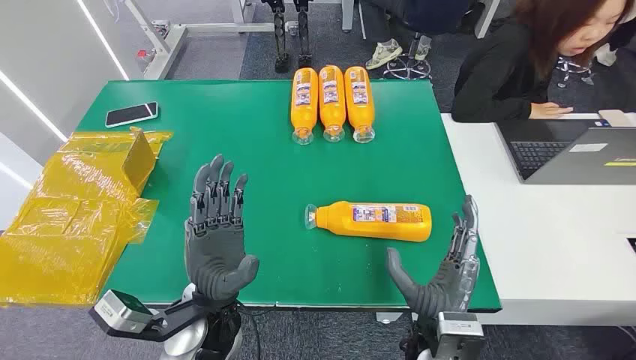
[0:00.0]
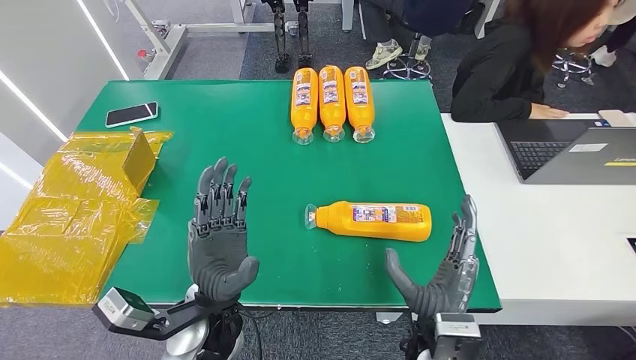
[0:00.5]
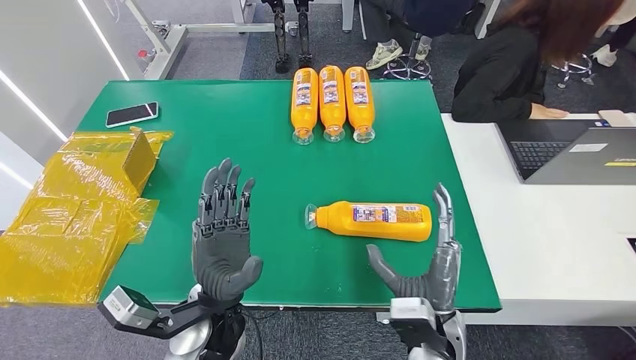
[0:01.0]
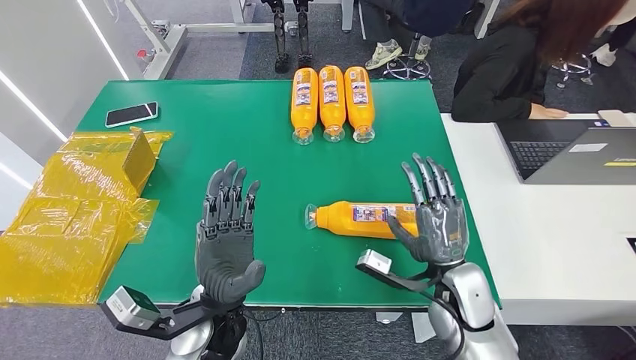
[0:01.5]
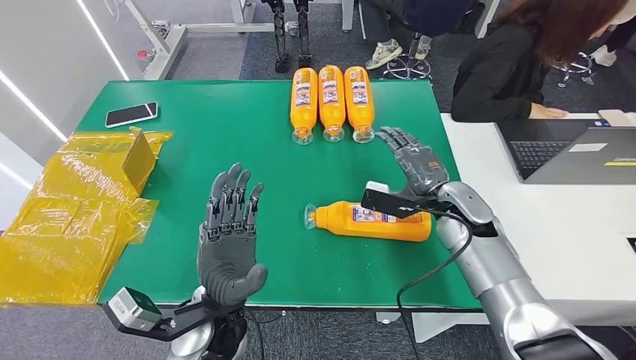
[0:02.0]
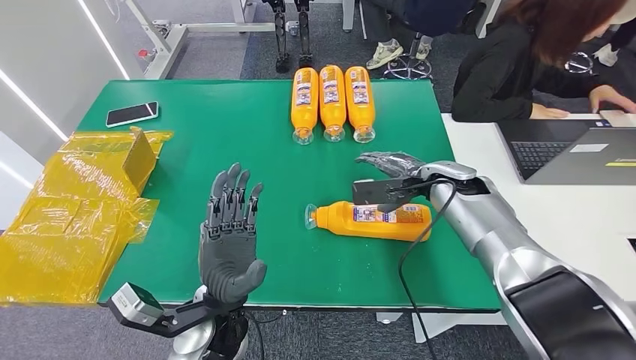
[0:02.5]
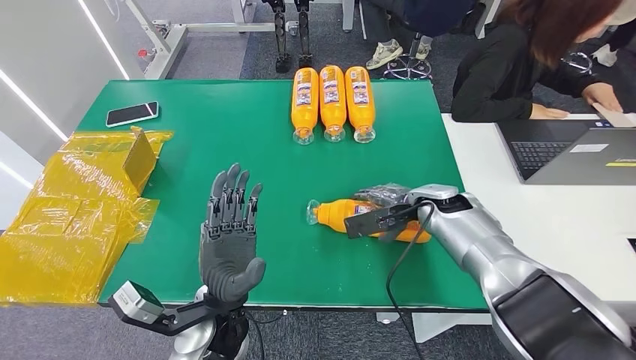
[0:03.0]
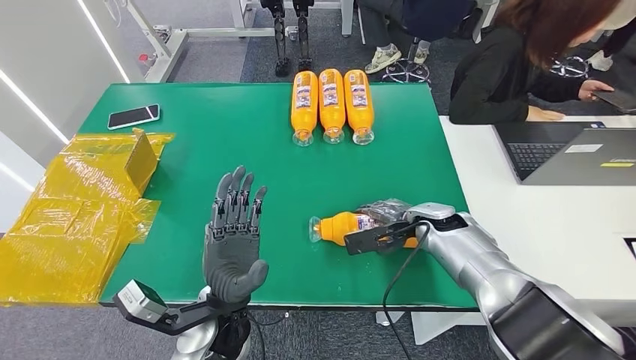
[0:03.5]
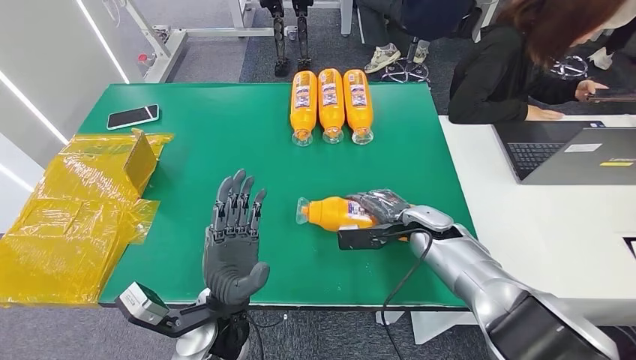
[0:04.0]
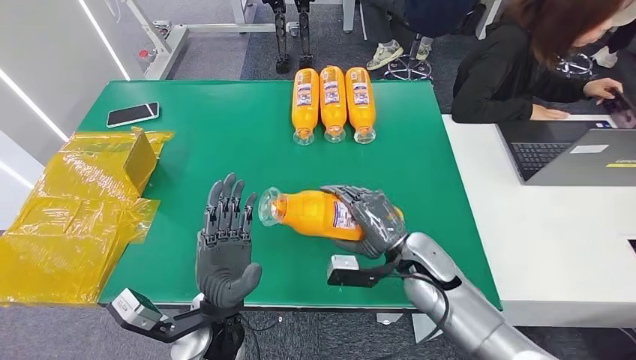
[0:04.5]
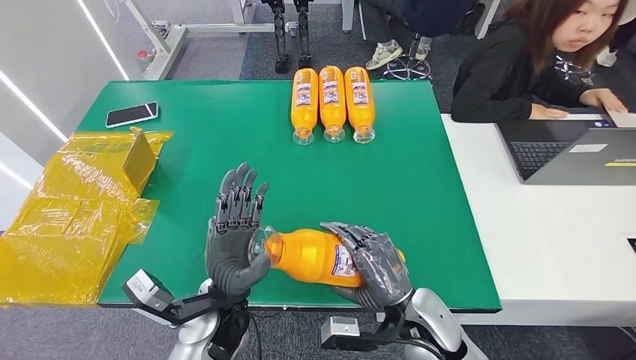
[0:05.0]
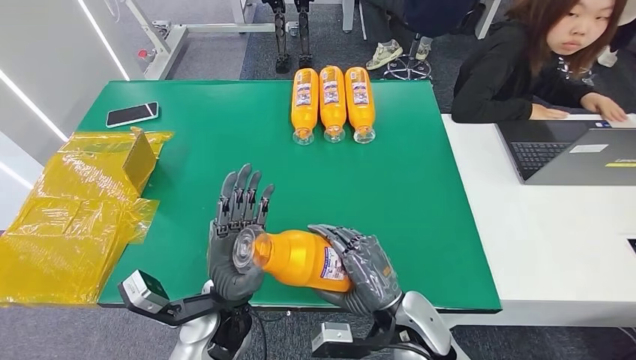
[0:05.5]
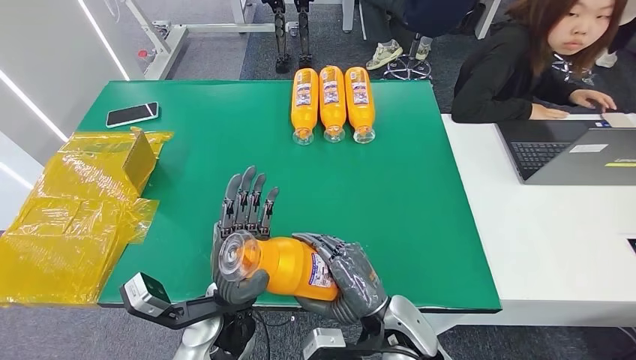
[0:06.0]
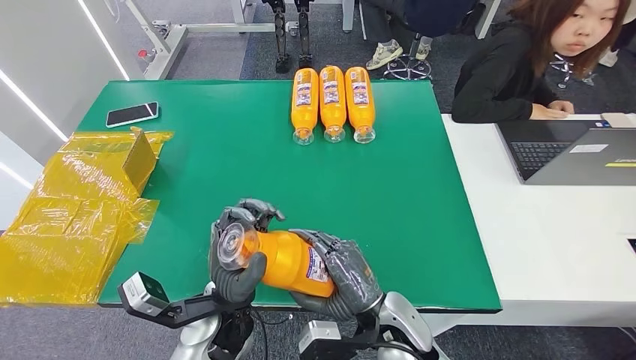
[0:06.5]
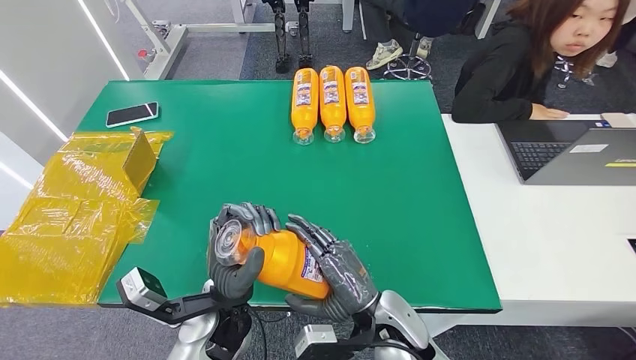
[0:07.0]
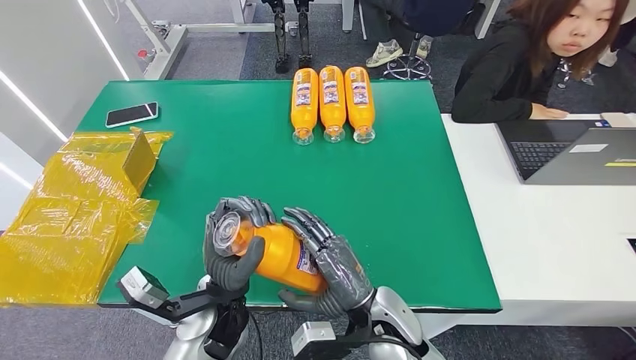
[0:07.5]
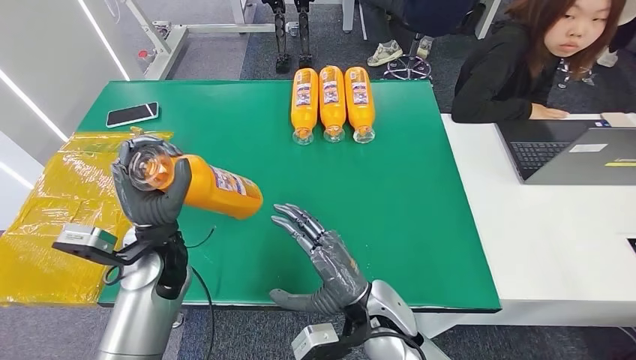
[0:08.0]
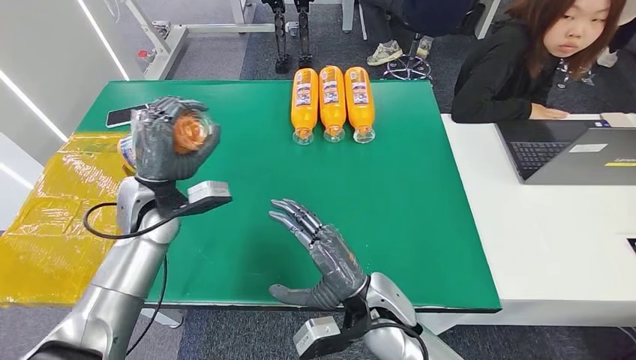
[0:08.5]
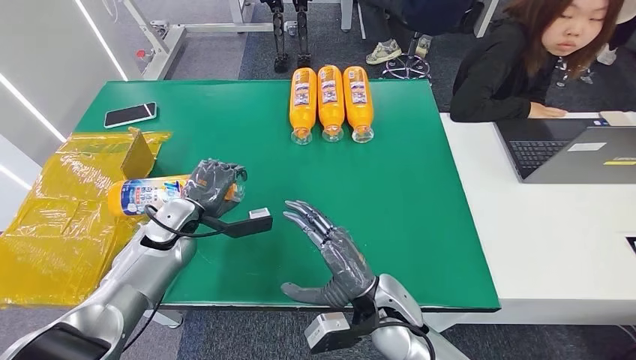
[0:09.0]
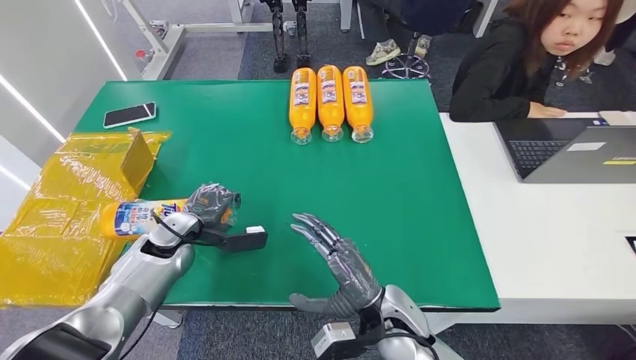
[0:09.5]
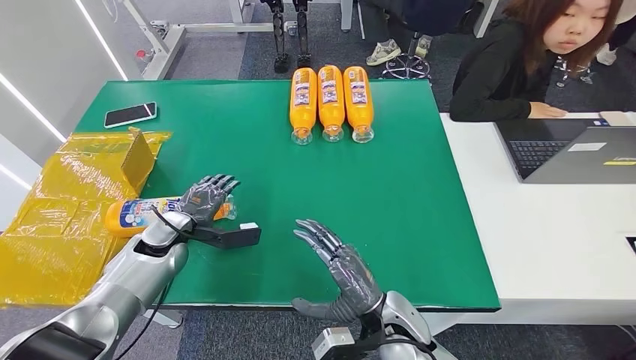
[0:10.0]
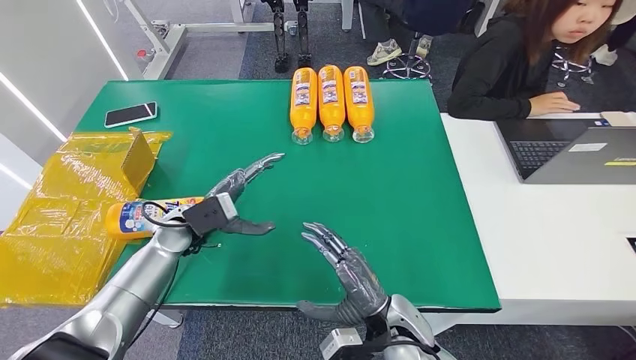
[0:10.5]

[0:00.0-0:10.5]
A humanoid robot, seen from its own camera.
Step, 0:00.0 to 0:05.0: Pick up the bottle from the table.
Step, 0:05.5 to 0:10.5: Turn the bottle to the front side.
0:02.0 to 0:04.0: The right hand shifts about 5 cm downward.
0:06.5 to 0:08.5: The left hand shifts approximately 25 cm forward, to the left and upward.
0:08.5 to 0:10.5: Both hands move downward, some 5 cm.

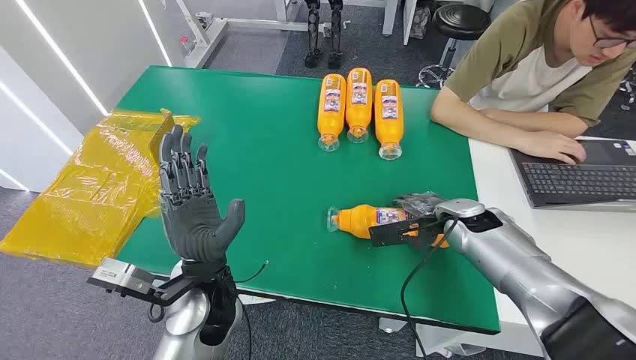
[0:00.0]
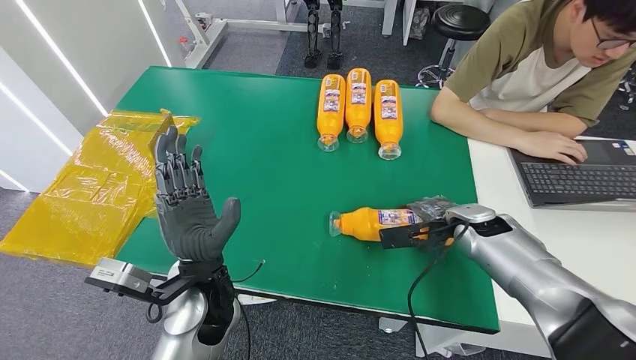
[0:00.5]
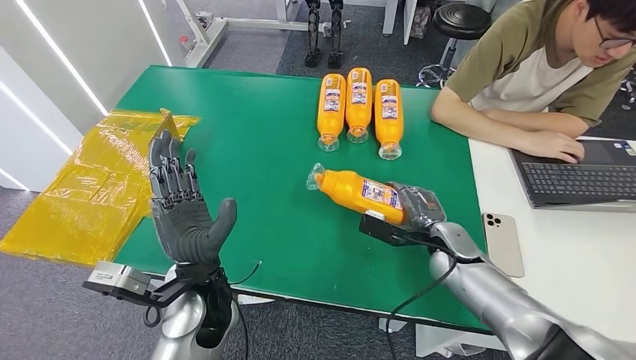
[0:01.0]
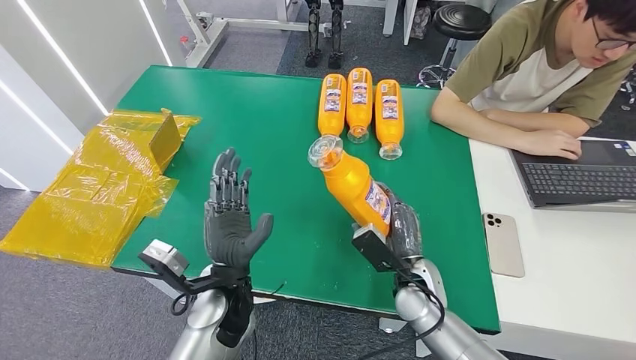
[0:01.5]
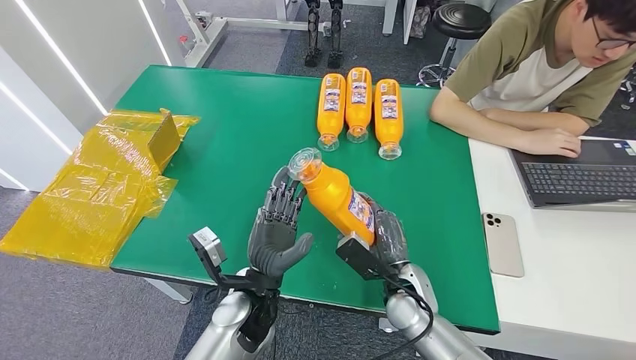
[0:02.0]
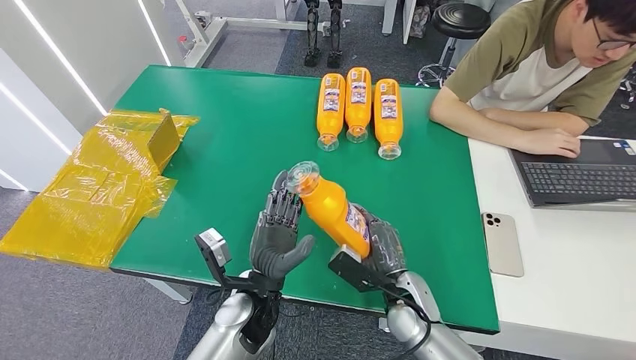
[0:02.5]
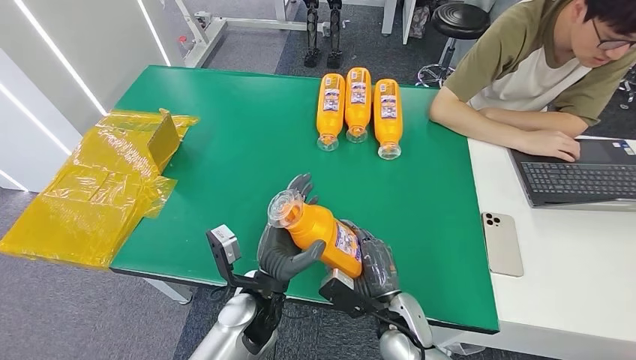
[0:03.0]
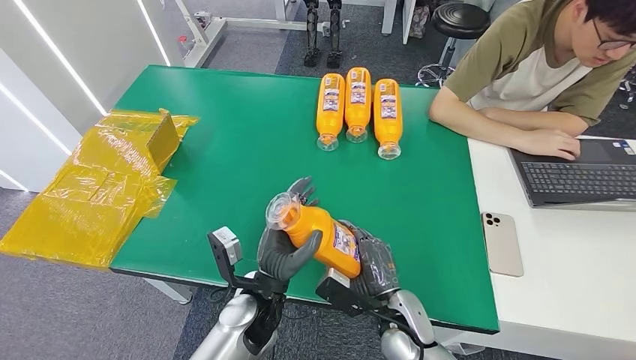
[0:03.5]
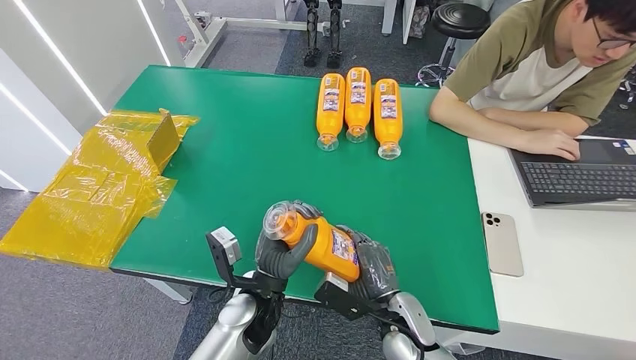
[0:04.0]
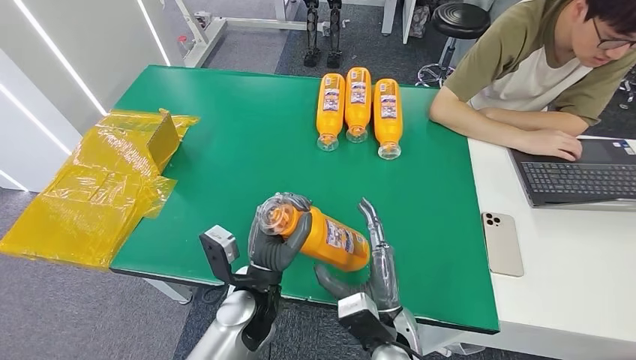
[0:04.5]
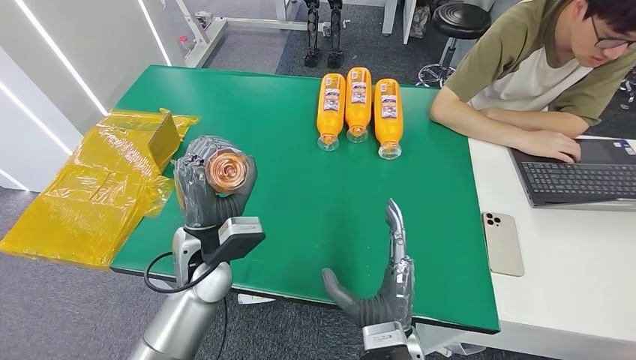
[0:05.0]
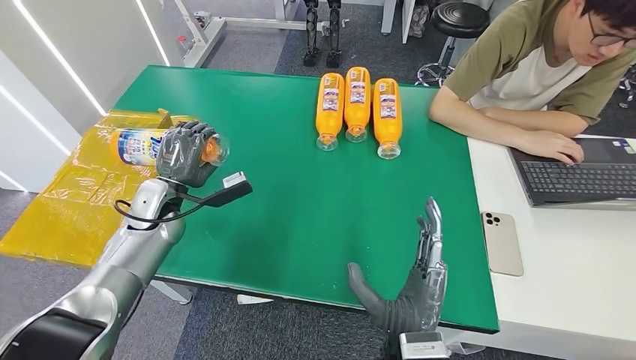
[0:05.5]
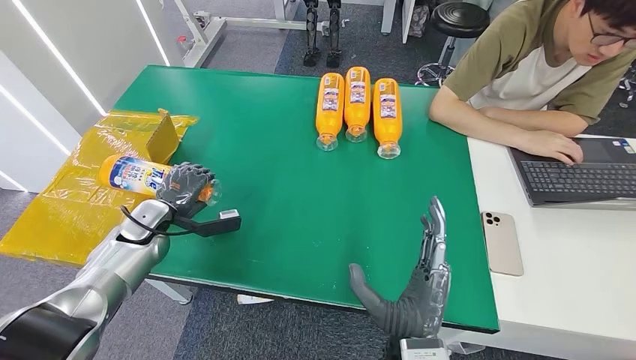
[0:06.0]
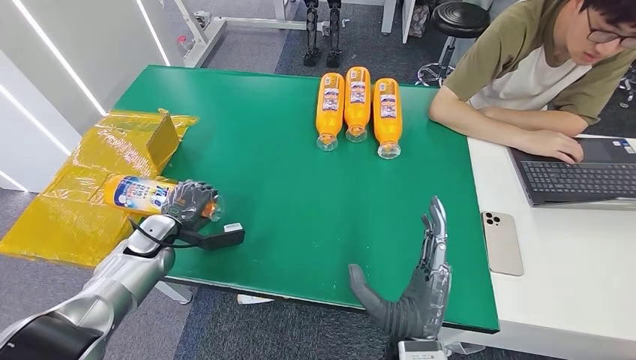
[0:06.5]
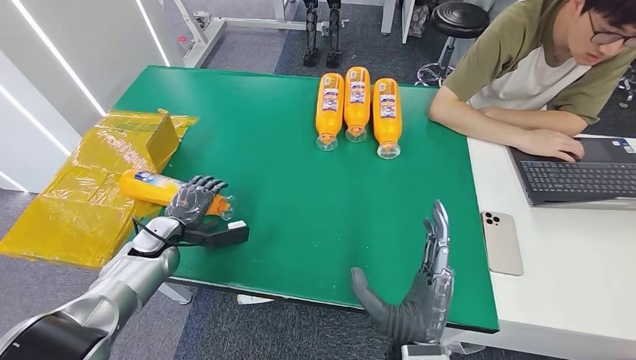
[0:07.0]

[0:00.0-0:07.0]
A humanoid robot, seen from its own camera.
Step, 0:00.0 to 0:01.5: Pick up the bottle from the table.
Step, 0:02.0 to 0:07.0: Turn the bottle to the front side.
0:02.0 to 0:03.5: The right hand changes place by about 5 cm.
0:03.5 to 0:05.0: The left hand is displaced to the left, upward and forward by approximately 15 cm. The right hand goes about 10 cm backward and upward.
0:05.0 to 0:07.0: The left hand shifts roughly 20 cm to the left and downward.

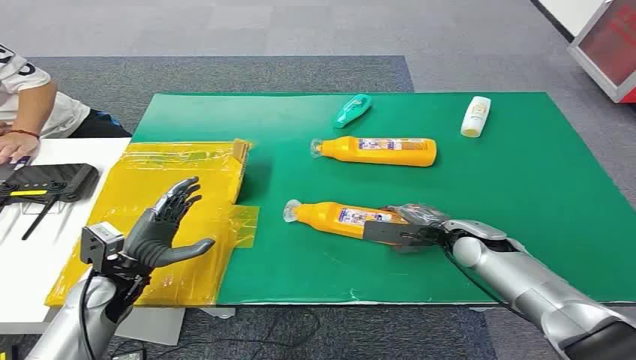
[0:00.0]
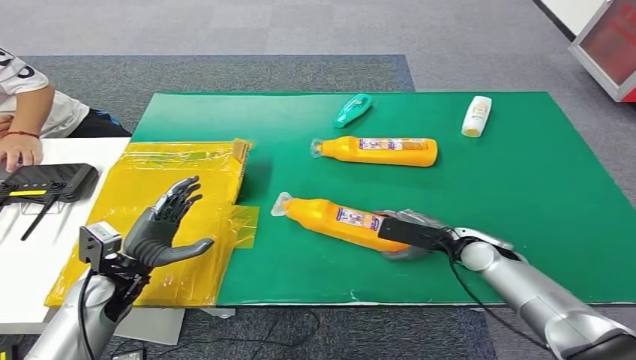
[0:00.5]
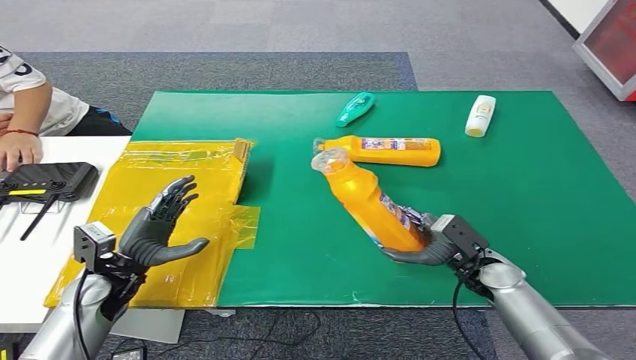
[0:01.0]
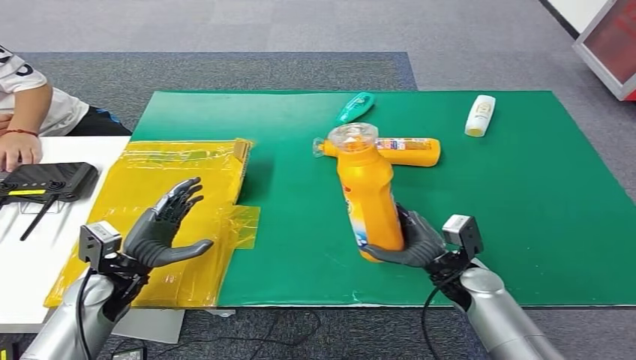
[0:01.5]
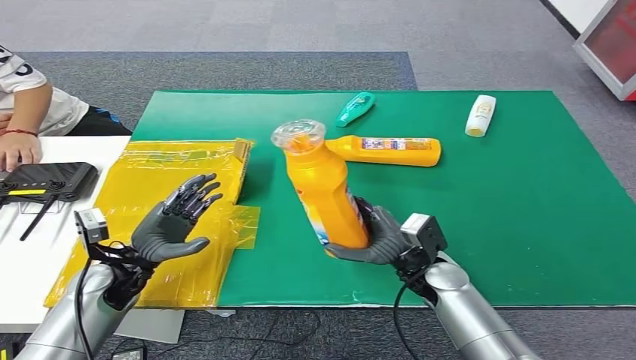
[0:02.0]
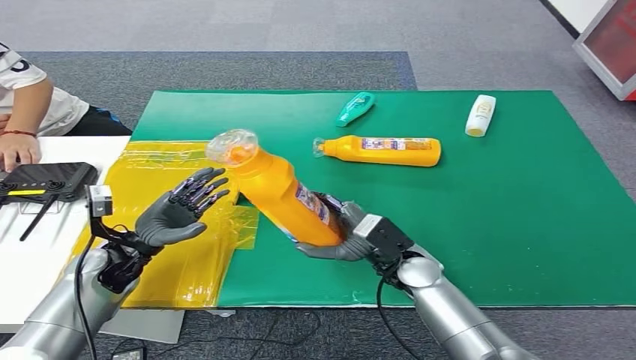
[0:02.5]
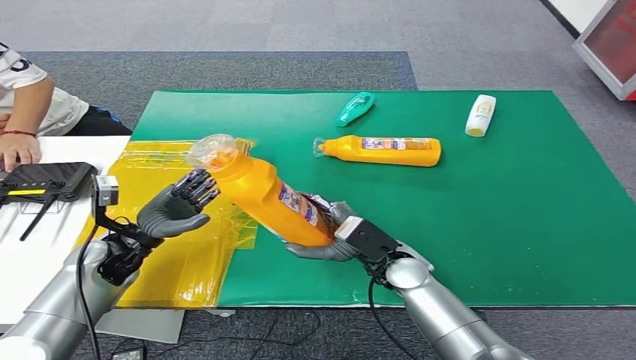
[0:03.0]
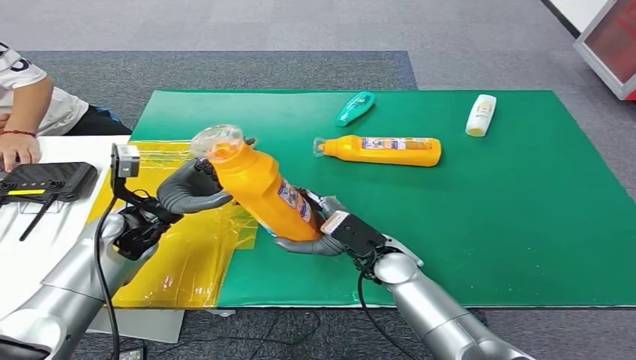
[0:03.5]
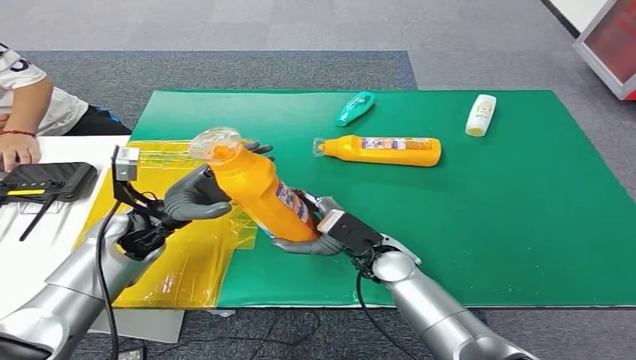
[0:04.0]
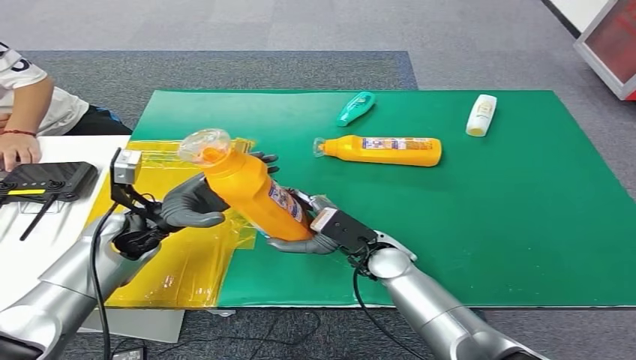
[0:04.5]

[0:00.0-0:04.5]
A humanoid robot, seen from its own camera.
Step, 0:00.0 to 0:02.5: Pick up the bottle from the table.
0:02.0 to 0:04.5: The right hand moves to the left, approximately 5 cm, while the left hand goes roughly 10 cm upward and forward.
